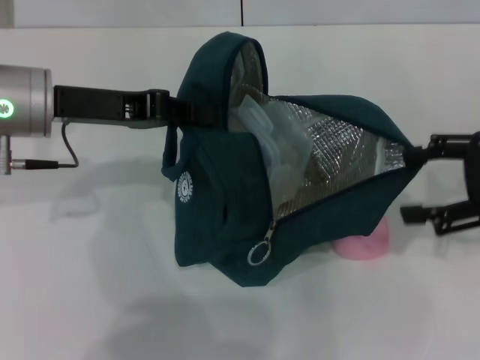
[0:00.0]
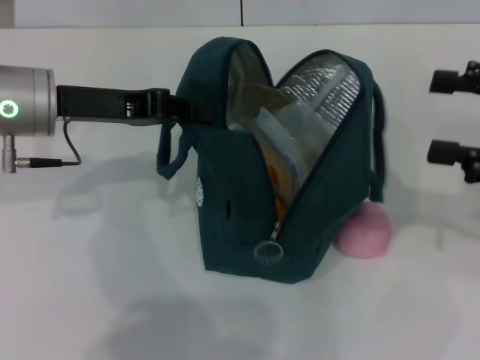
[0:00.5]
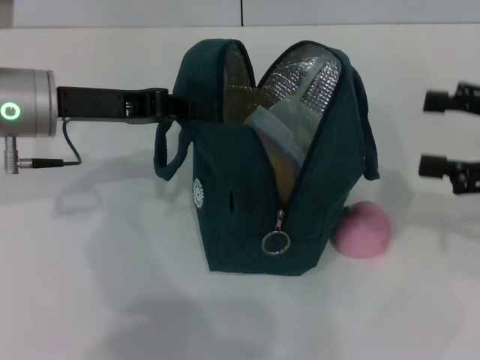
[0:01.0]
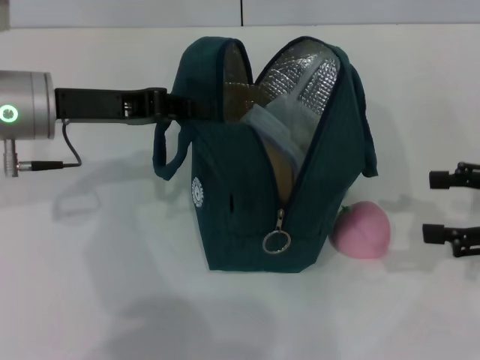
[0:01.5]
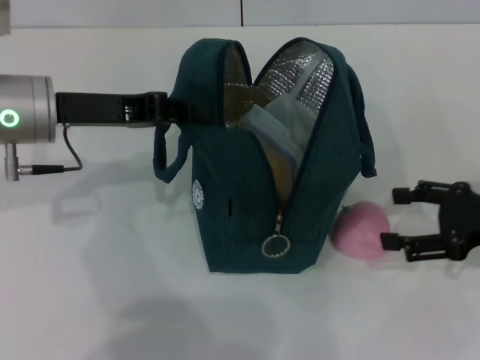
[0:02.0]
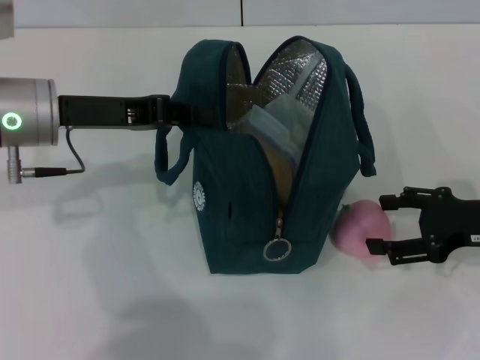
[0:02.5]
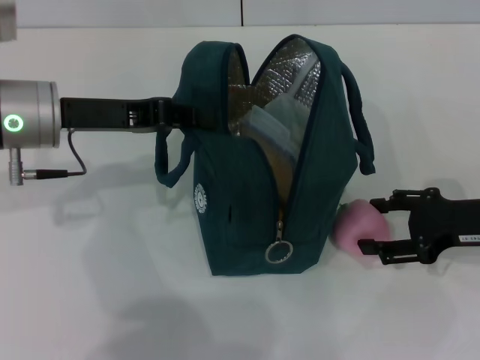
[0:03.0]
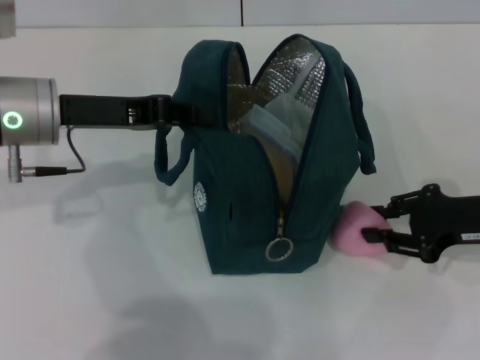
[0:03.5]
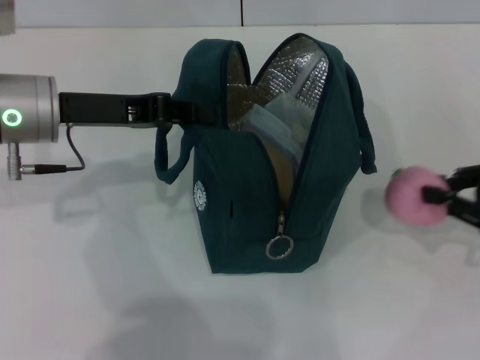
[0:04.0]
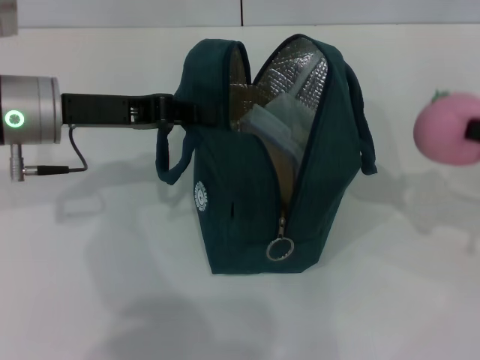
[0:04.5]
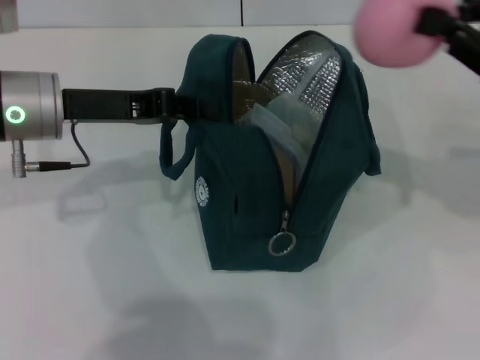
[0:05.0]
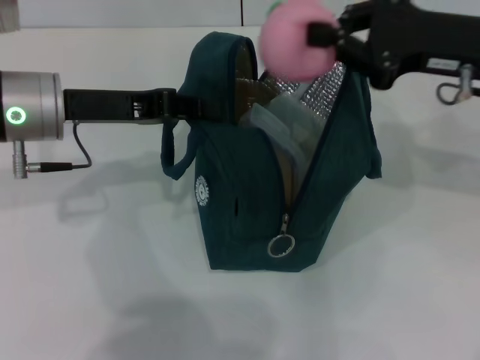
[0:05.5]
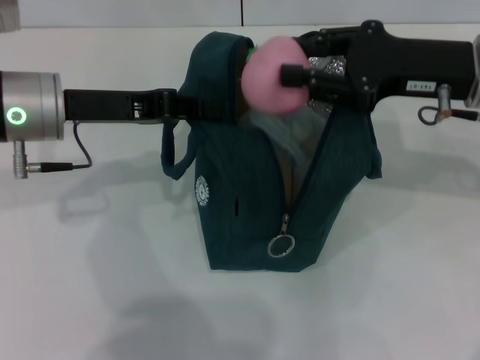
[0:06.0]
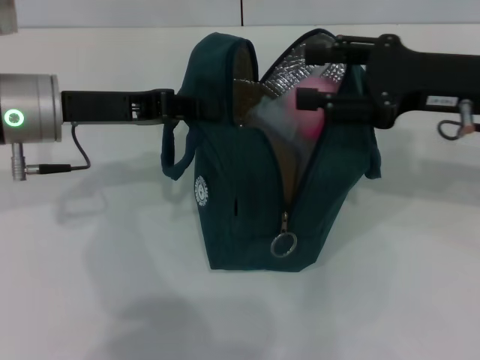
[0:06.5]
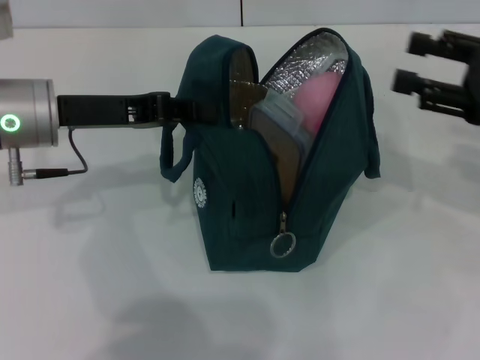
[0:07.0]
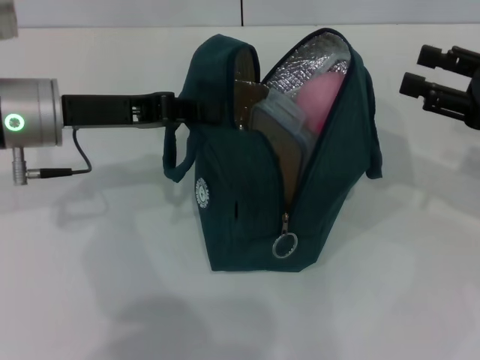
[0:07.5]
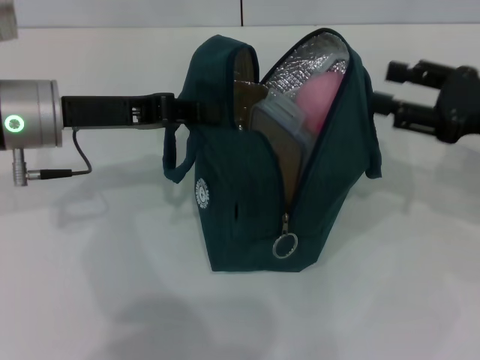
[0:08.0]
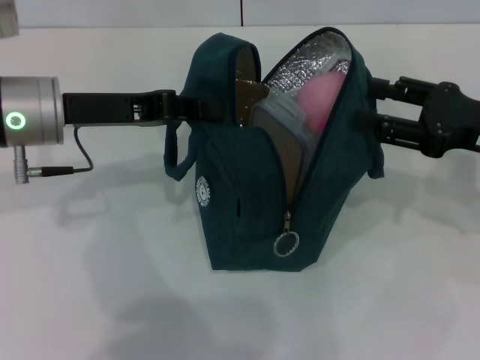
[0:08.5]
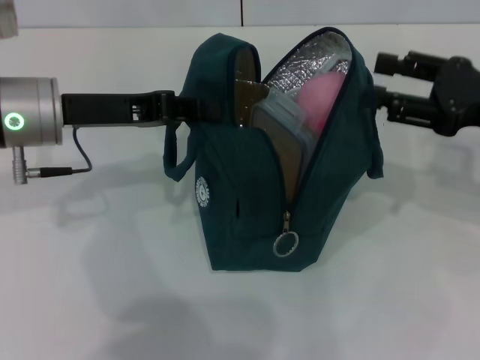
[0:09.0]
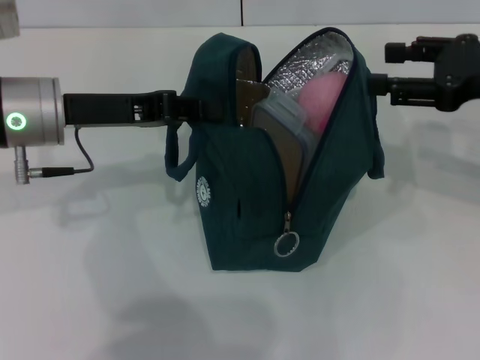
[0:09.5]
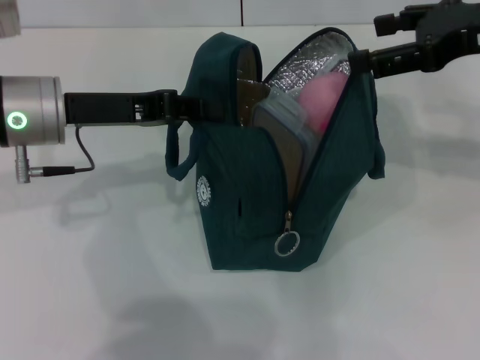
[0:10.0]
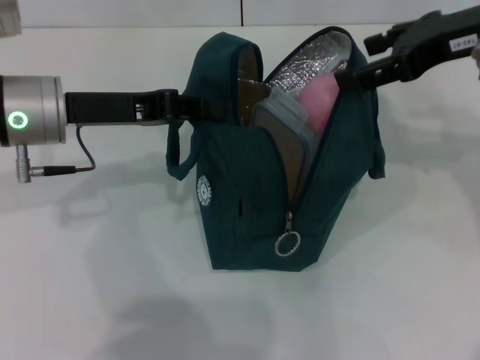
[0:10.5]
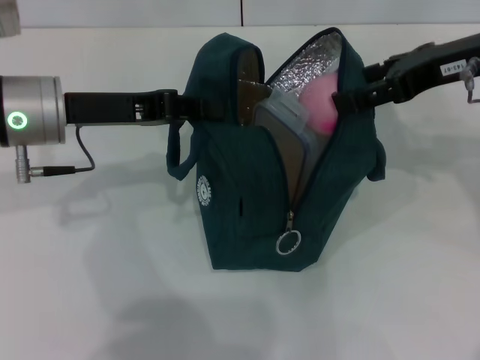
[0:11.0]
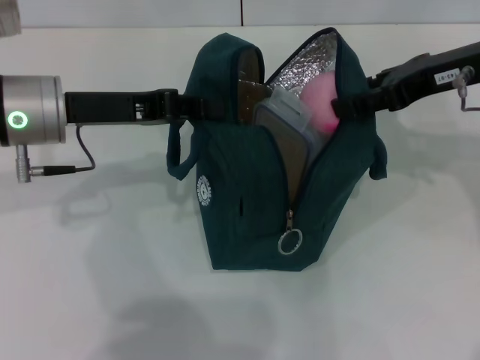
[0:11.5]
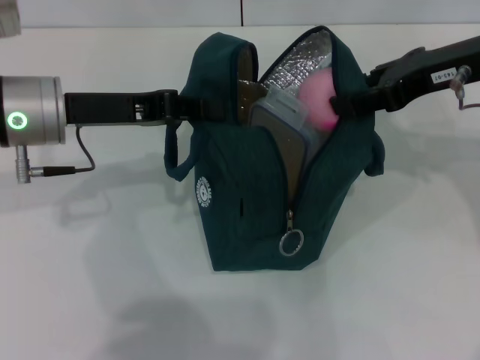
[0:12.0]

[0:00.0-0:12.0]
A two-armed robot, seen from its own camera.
Step, 0:00.0 to 0:03.5: Grab the peach with your right hand.
0:00.0 to 0:02.0: The right gripper travels downward by approximately 10 cm.
0:02.0 to 0:04.0: The right gripper closes its fingers.
0:04.0 to 0:06.0: The right gripper heads to the left, forward and upward, covering some 15 cm.
0:06.0 to 0:08.0: The right gripper moves to the right, approximately 10 cm, and opens up.
0:08.0 to 0:10.0: The right gripper travels upward by roughly 10 cm.
0:10.0 to 0:12.0: There are only small adjustments of the grippers.

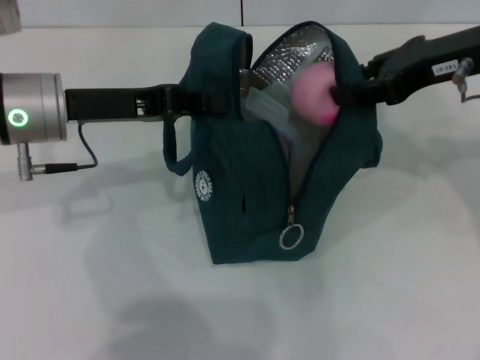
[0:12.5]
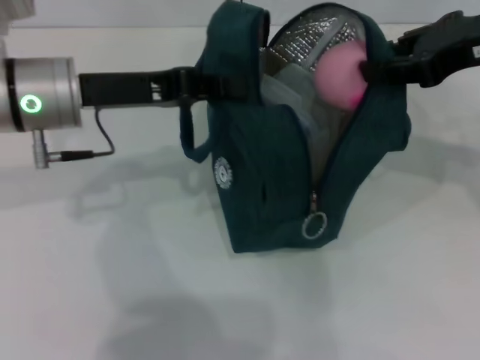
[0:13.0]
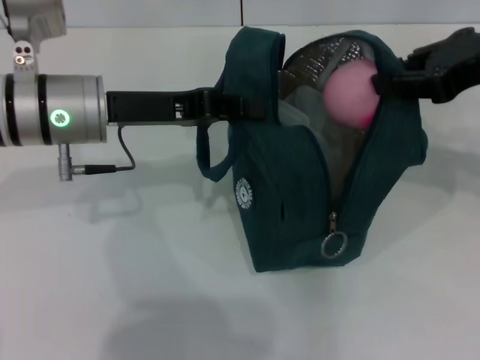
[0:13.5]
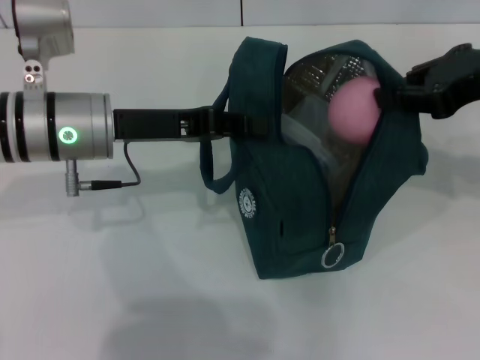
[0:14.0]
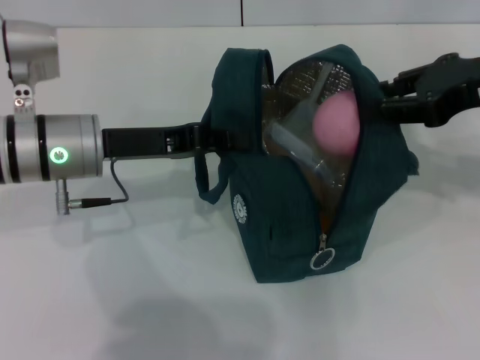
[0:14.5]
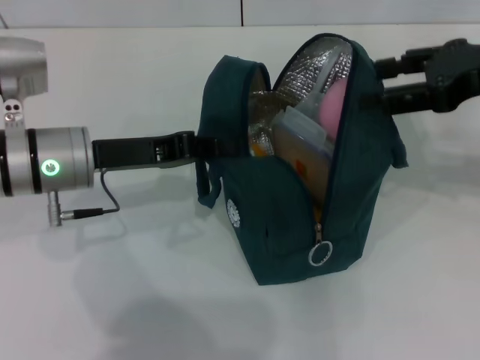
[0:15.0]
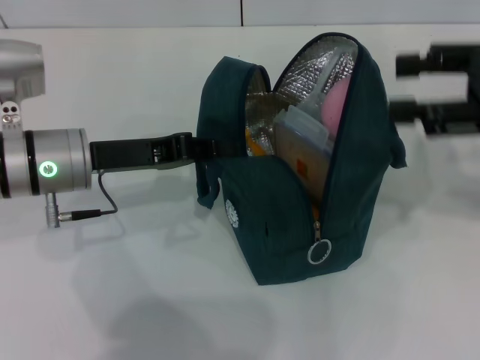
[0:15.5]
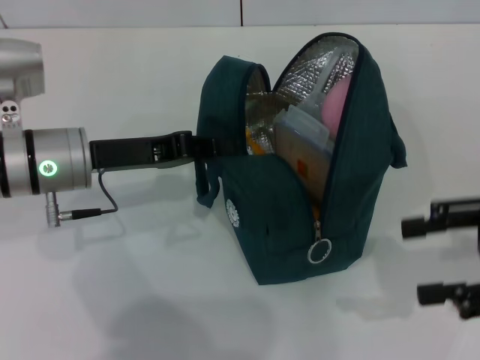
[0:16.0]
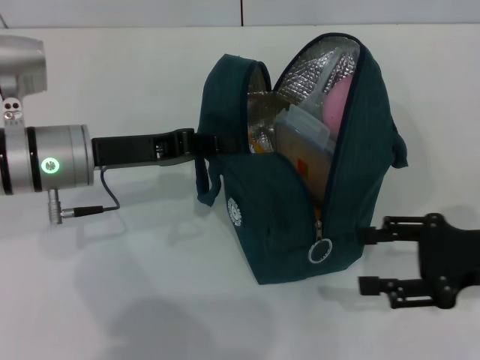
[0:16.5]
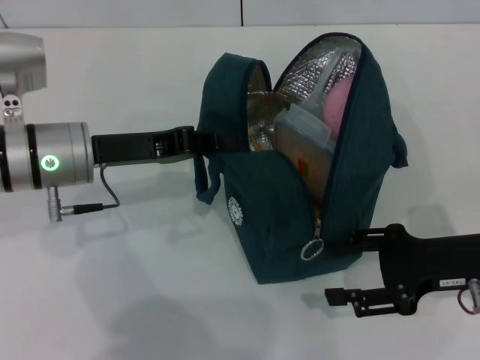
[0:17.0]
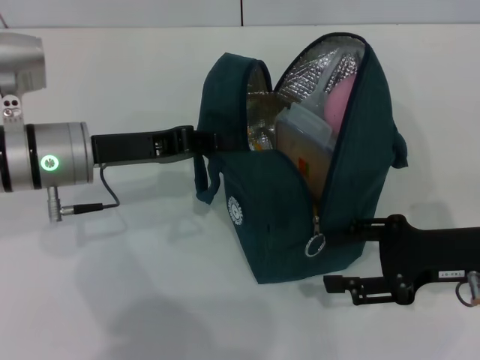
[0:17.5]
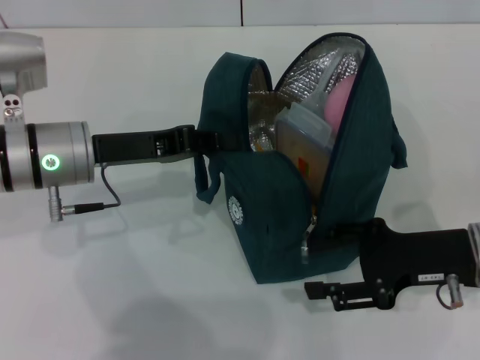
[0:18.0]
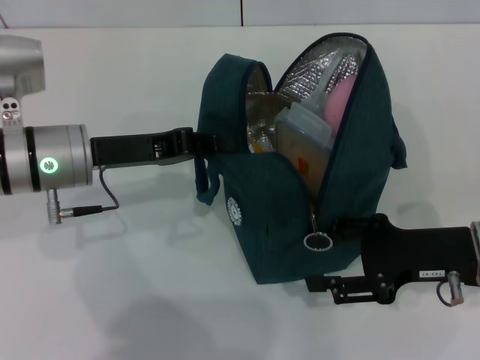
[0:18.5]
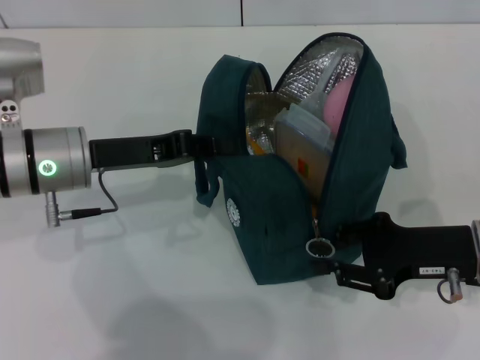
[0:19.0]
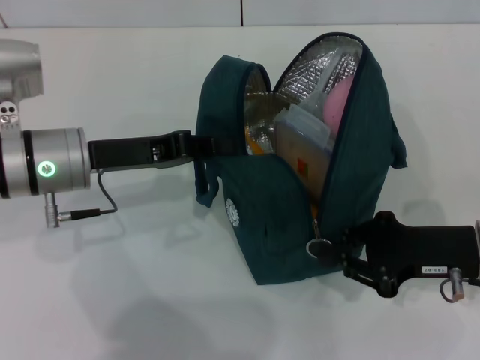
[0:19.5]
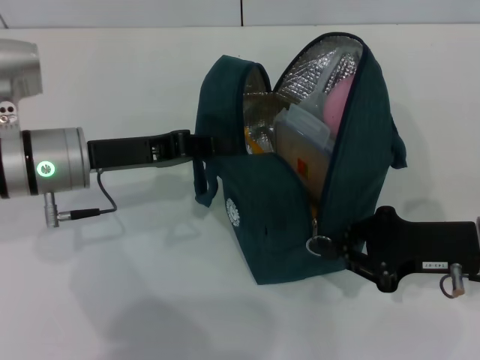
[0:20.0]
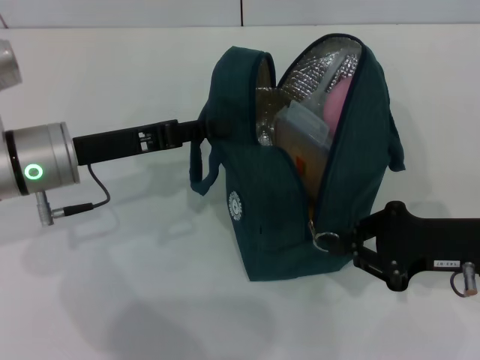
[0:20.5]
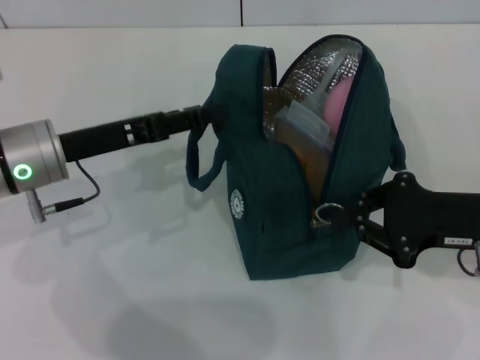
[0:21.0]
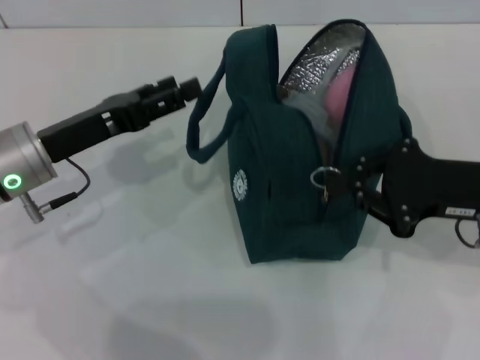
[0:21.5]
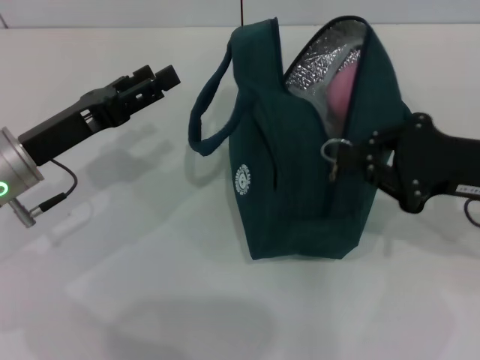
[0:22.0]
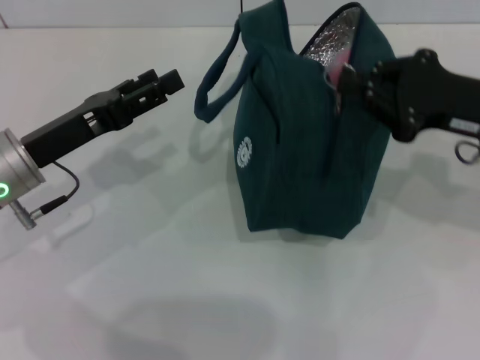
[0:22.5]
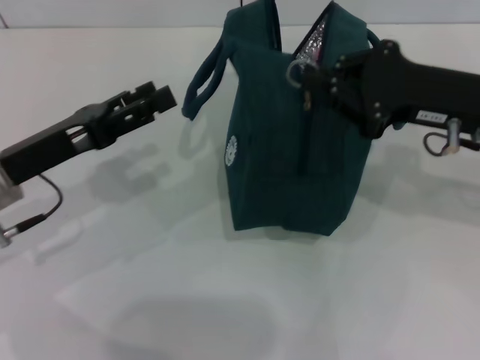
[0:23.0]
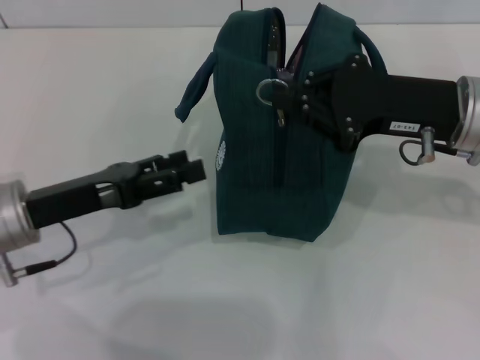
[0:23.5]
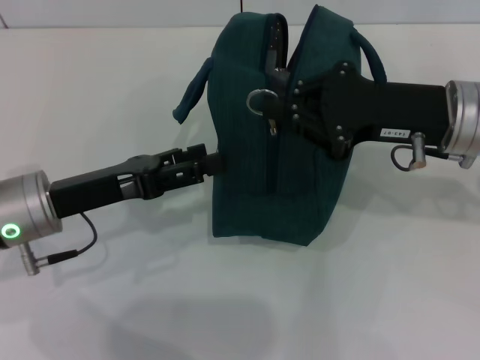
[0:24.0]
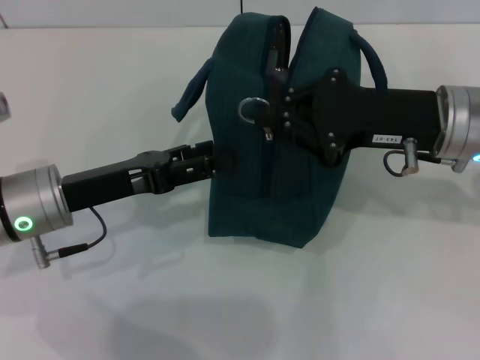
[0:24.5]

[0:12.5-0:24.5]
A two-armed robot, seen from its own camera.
Step, 0:12.5 to 0:15.0: Hold the lunch bag with your right hand.
0:14.5 to 0:16.5: The right gripper shifts roughly 15 cm downward and backward, and opens.
0:16.5 to 0:18.5: The right gripper ends up some 5 cm from where it was.
0:18.5 to 0:20.5: The right gripper closes up.
0:20.5 to 0:22.5: The left gripper opens up, while the right gripper shifts some 10 cm upward and forward.
0:22.5 to 0:24.5: The right gripper is displaced to the left by about 5 cm.

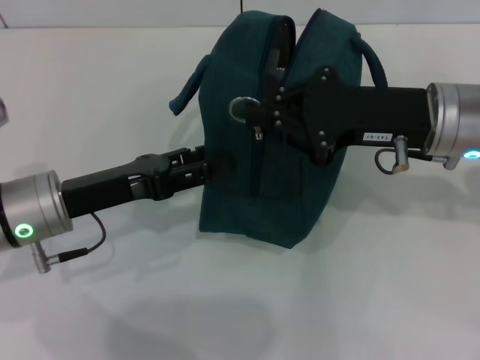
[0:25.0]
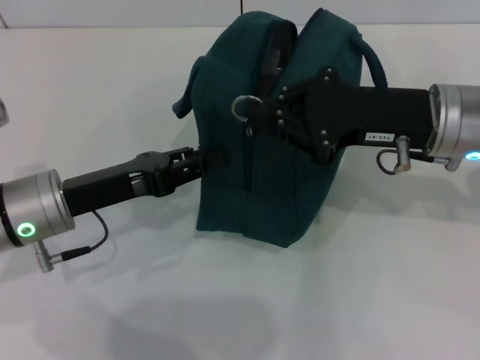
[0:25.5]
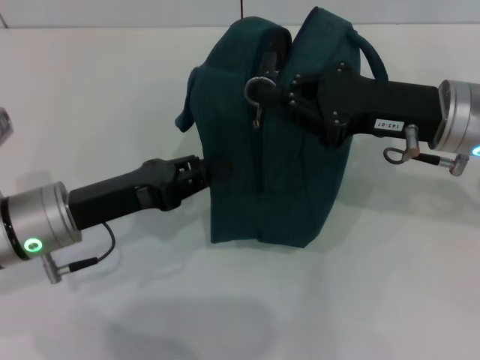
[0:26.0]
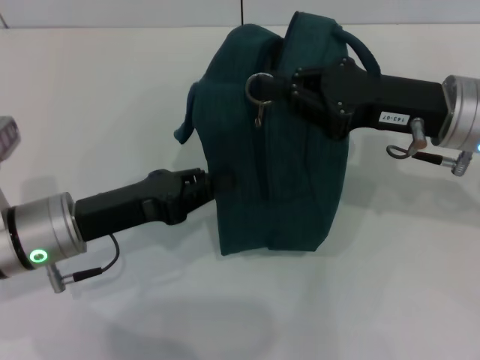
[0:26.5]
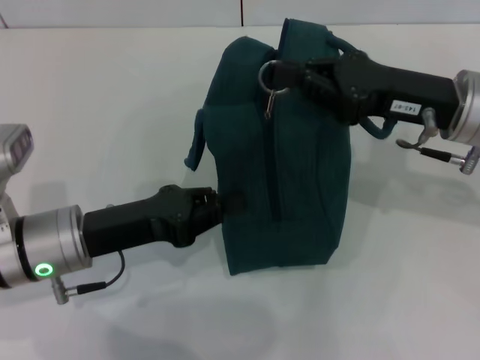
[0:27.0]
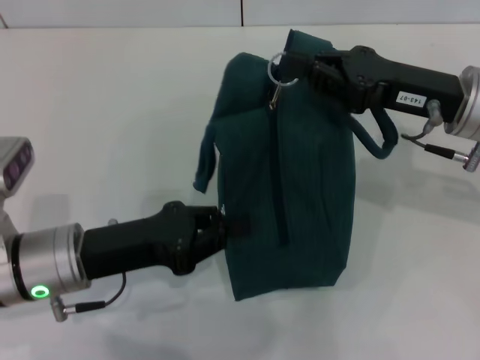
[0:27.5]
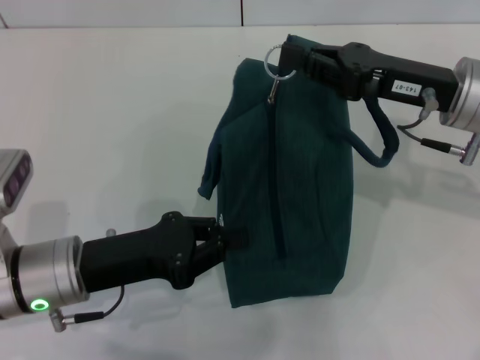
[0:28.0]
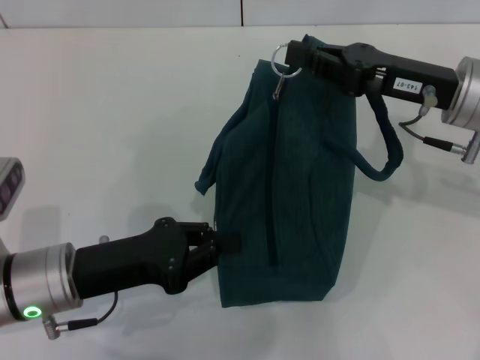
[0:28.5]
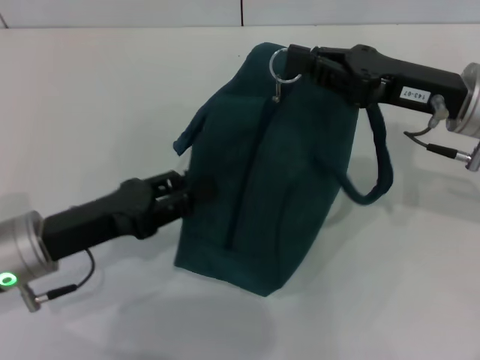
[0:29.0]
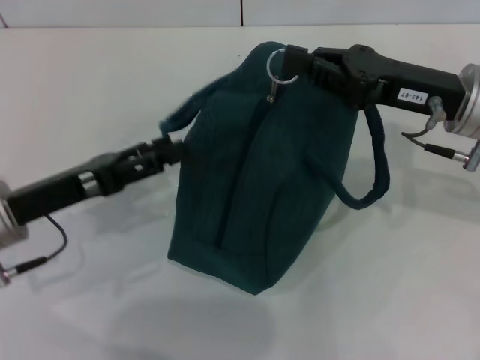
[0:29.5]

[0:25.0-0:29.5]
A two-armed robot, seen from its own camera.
0:25.0 to 0:27.0: The left gripper closes up.
0:27.0 to 0:29.5: The left gripper ends up approximately 5 cm from where it was, and opens up.
